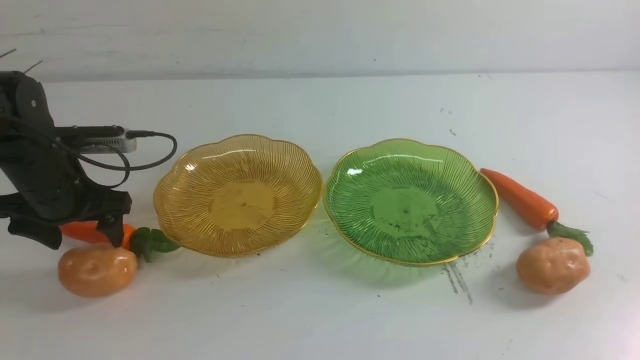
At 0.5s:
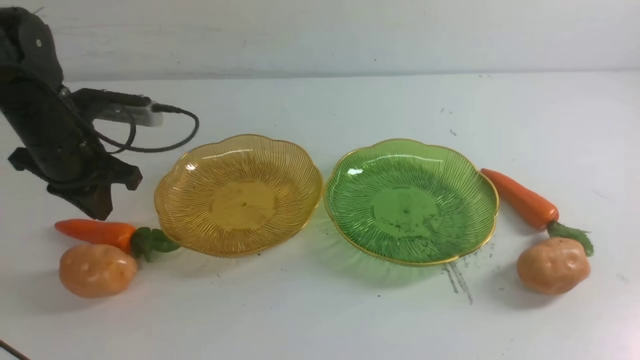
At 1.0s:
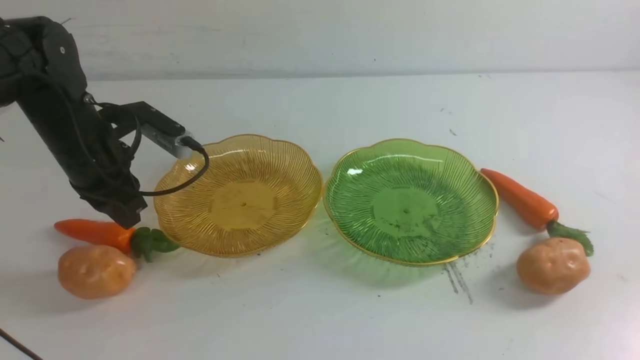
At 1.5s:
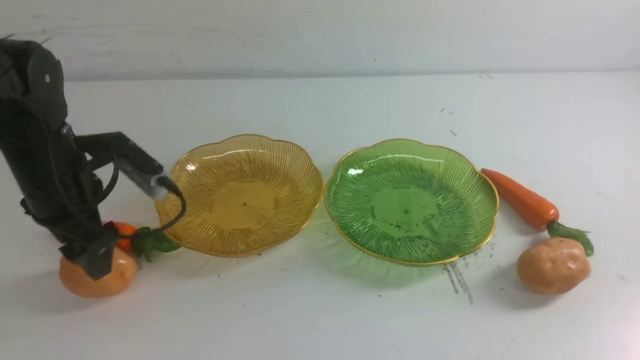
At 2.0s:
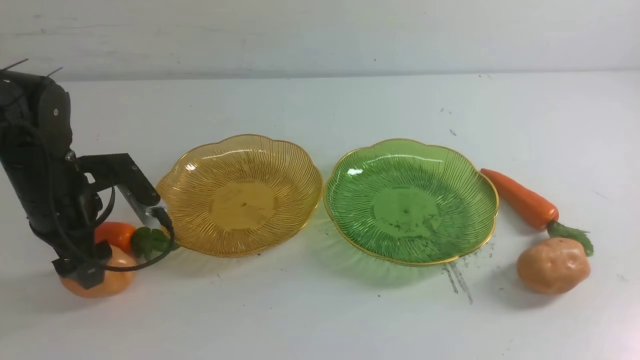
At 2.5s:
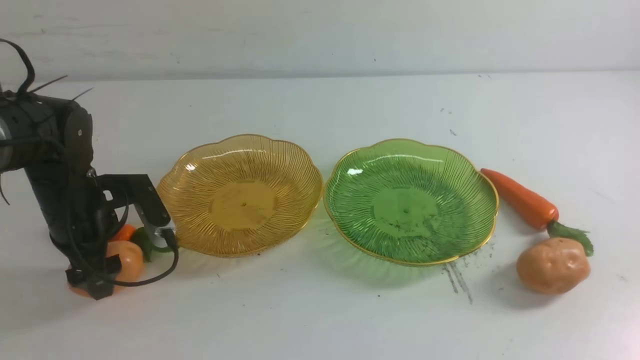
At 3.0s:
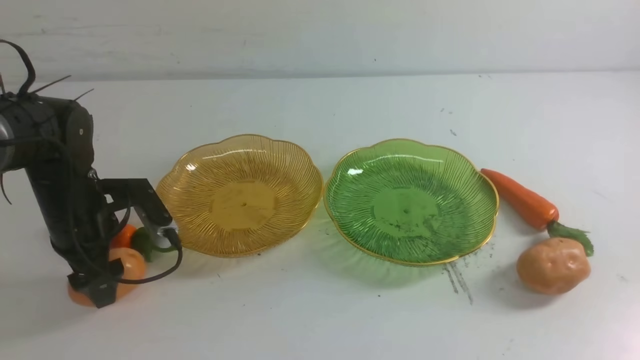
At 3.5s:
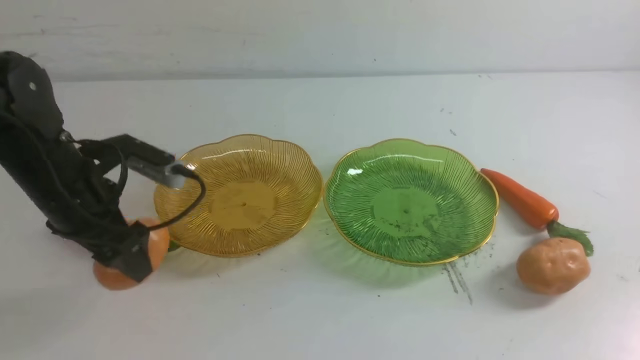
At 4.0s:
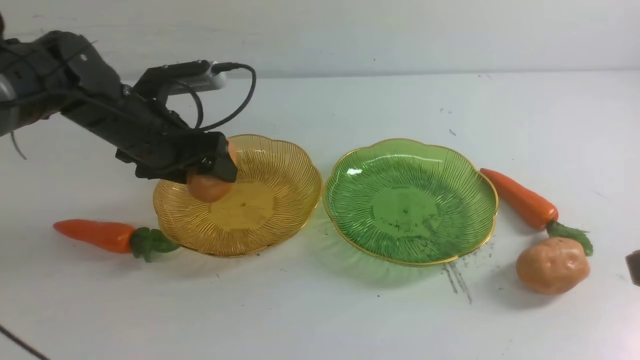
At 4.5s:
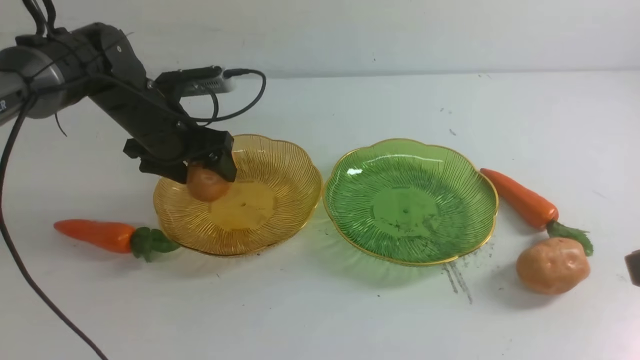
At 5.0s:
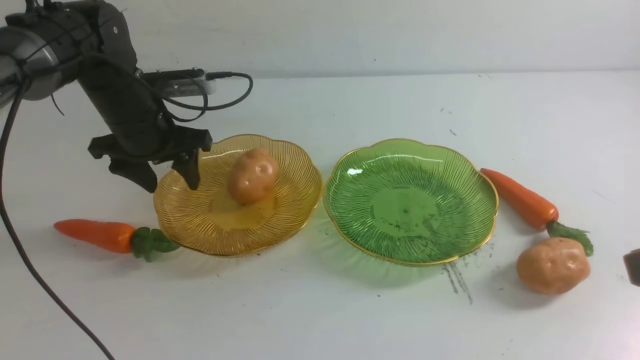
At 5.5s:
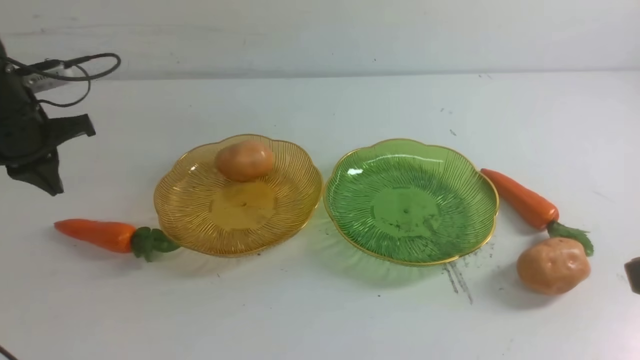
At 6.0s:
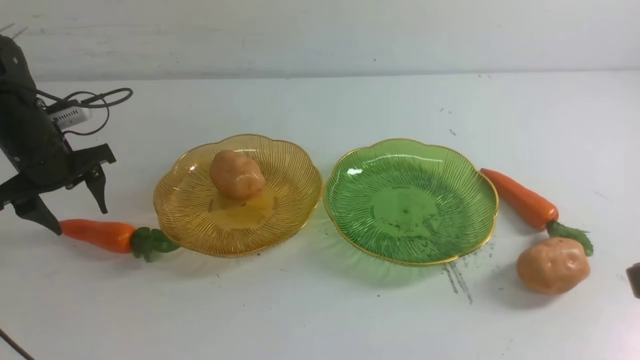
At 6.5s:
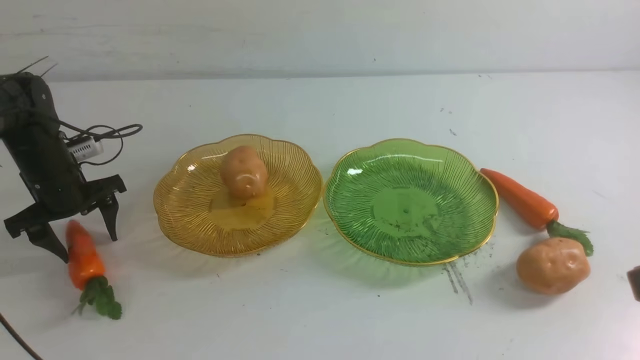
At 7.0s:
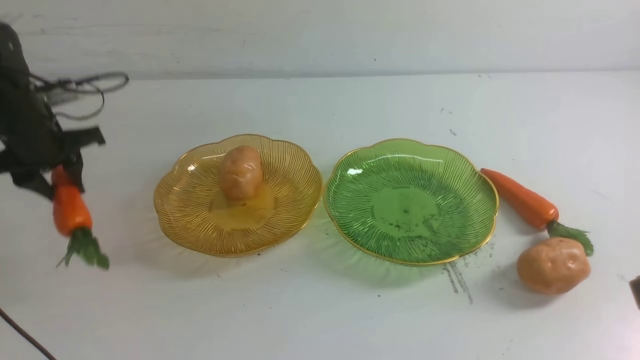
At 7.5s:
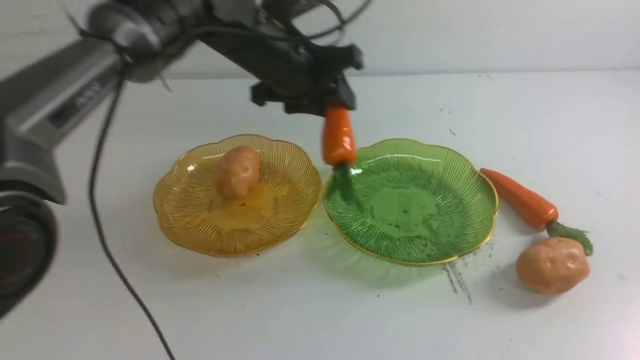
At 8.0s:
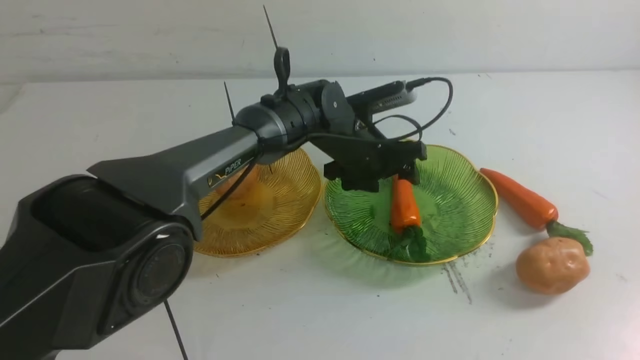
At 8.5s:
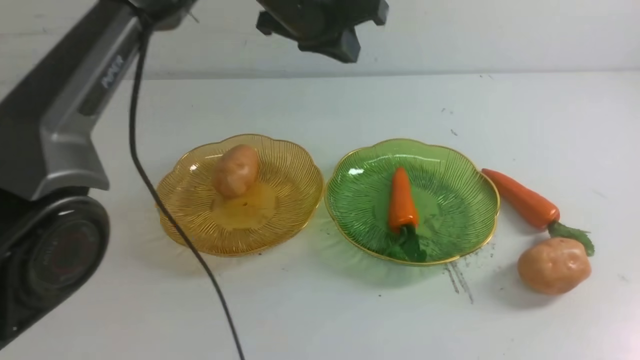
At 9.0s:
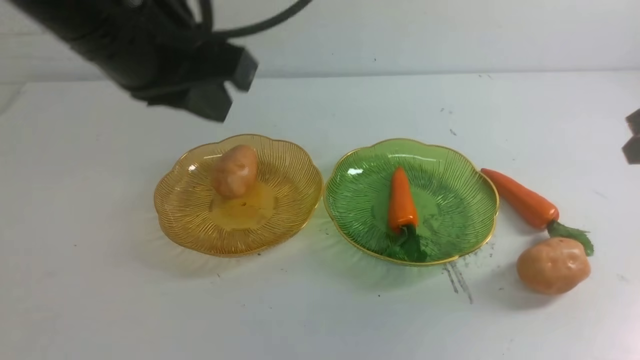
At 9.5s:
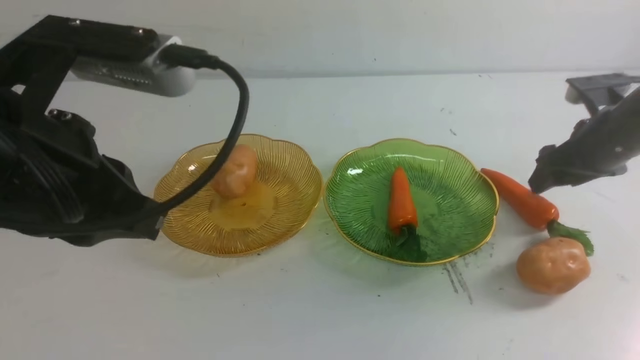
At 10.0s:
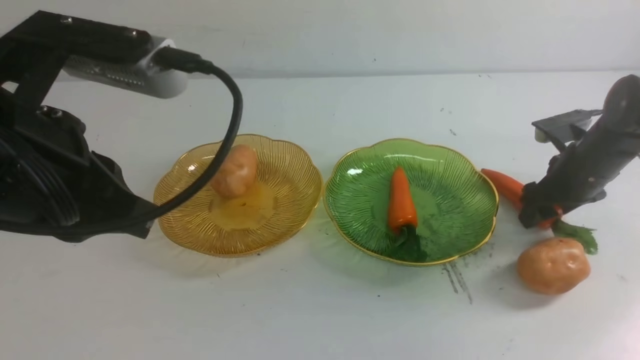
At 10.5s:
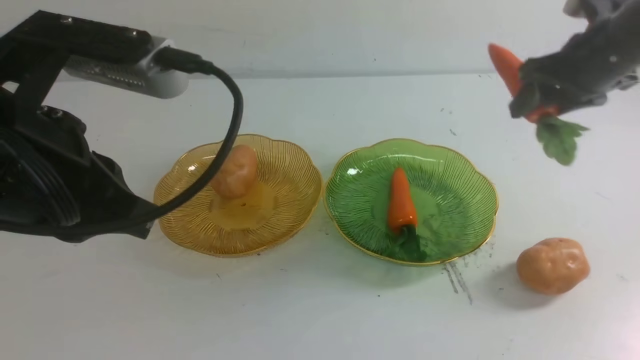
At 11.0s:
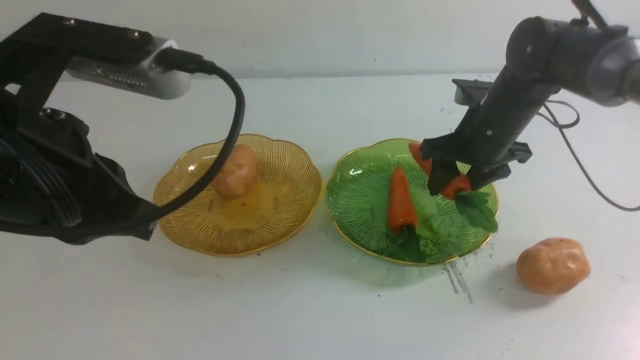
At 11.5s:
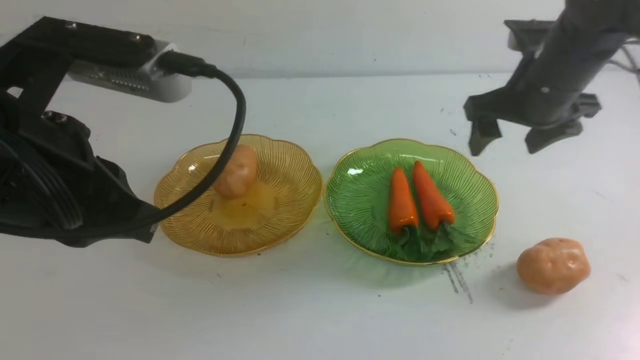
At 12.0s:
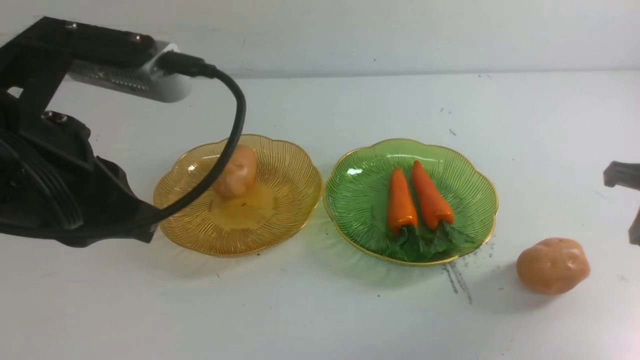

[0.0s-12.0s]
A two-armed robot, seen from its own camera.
Step, 0.0s to 4.5s: Grab a potato with your left arm and put it on the left plate.
Step, 5.0s to 8.0s: use the left arm to grab a carrot and put it into the right plate.
Step, 8.5s to 11.0s: use the right arm to grab a carrot and put it into the right plate.
0.0s to 2.0s: The left gripper closes and opens again.
2.0s to 4.0s: The left gripper travels to the right and forward by roughly 10 cm.
4.0s to 6.0s: The left gripper travels to the left by some 15 cm, and closes, then reopens.
6.0s to 8.0s: The left gripper goes some 35 cm to the right.
8.0s to 10.0s: The left gripper moves backward, to the left and upward, roughly 40 cm, and closes its fingers. The right gripper travels forward and downward by about 35 cm, and opens its fingers.
10.0s to 12.0s: The right gripper travels backward and upward by roughly 15 cm, travels to the left and back again, some 10 cm each way, and closes.

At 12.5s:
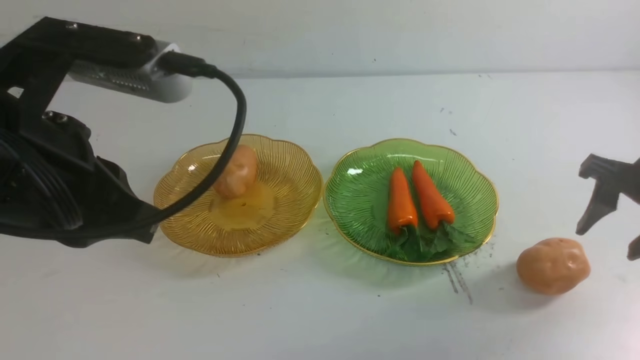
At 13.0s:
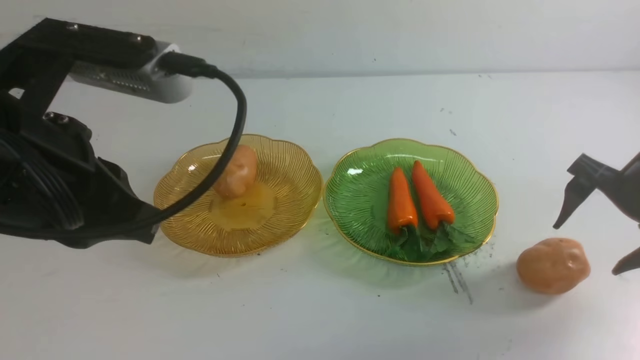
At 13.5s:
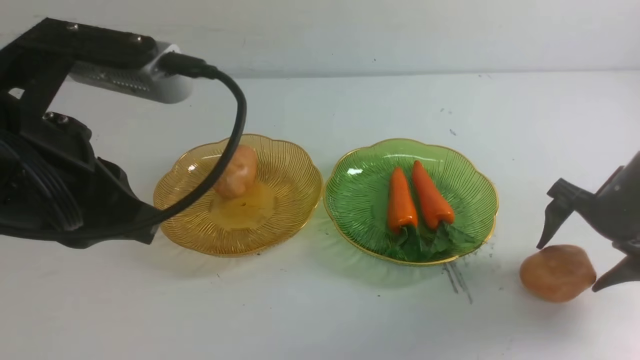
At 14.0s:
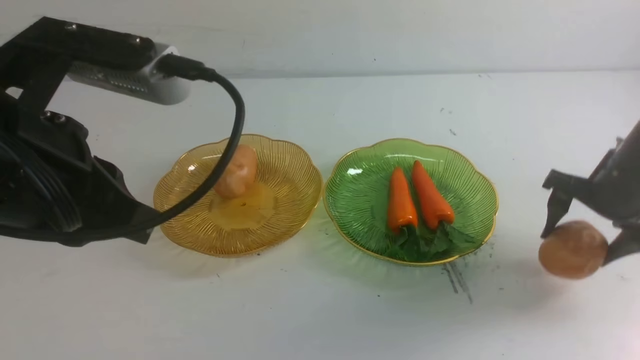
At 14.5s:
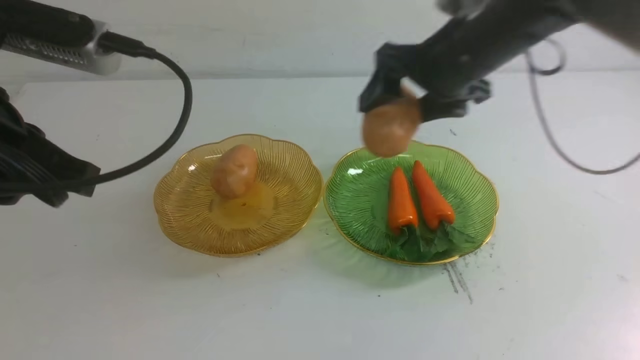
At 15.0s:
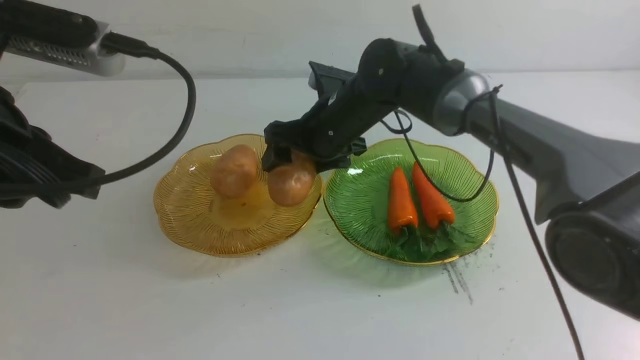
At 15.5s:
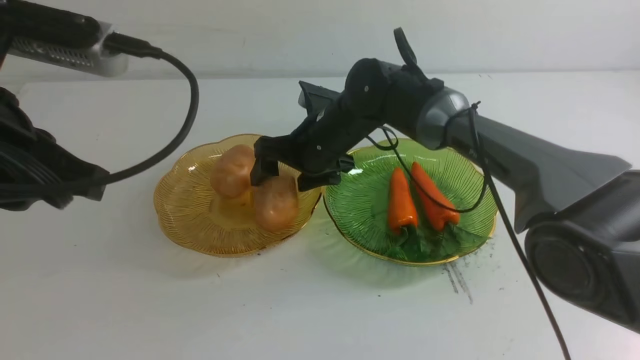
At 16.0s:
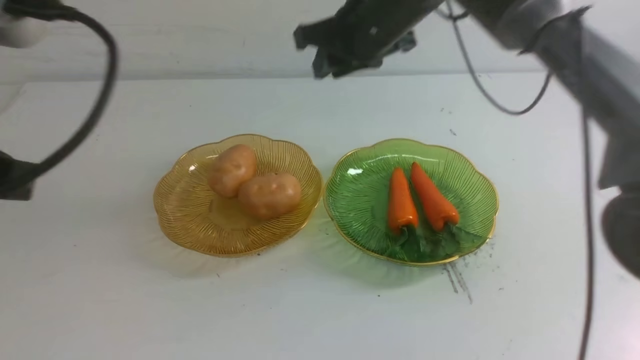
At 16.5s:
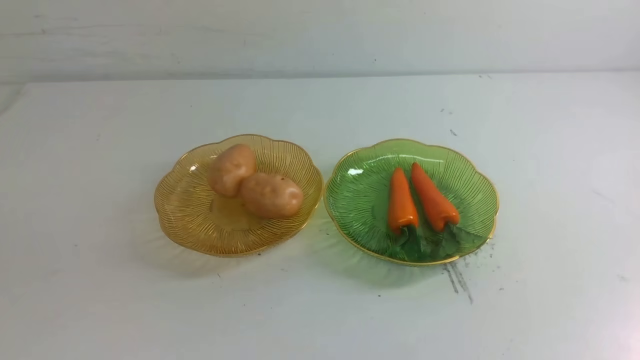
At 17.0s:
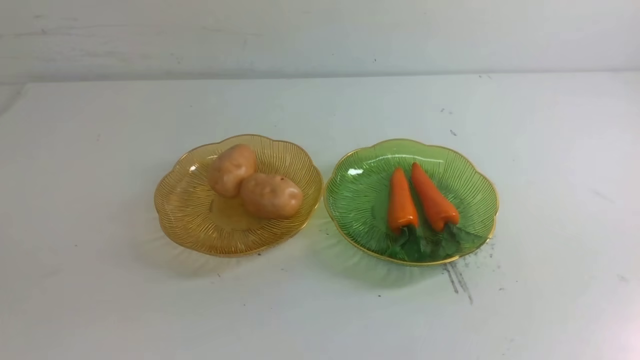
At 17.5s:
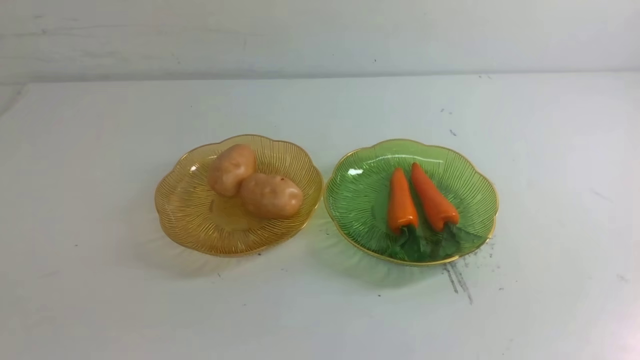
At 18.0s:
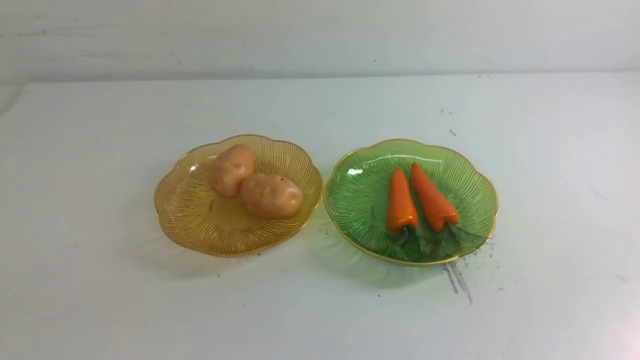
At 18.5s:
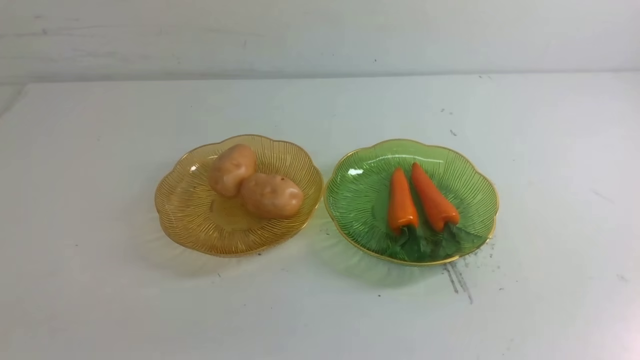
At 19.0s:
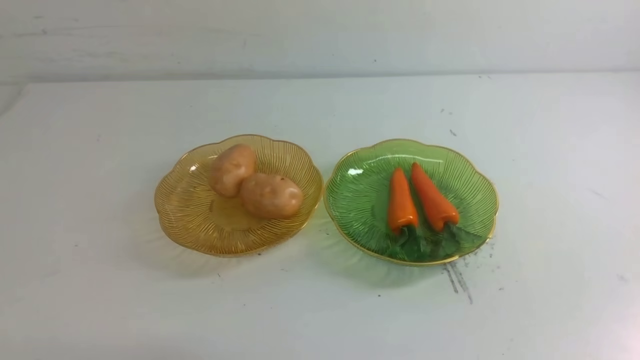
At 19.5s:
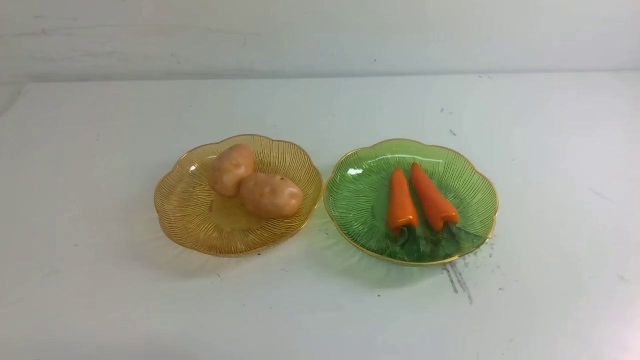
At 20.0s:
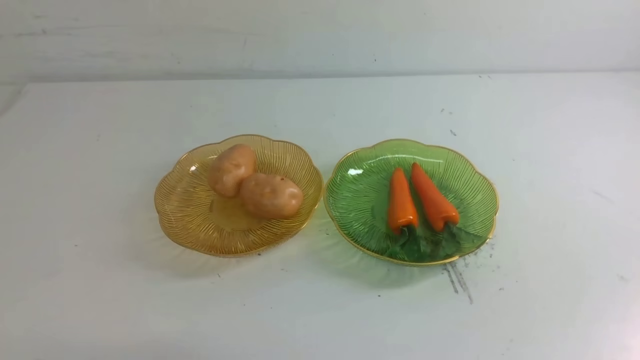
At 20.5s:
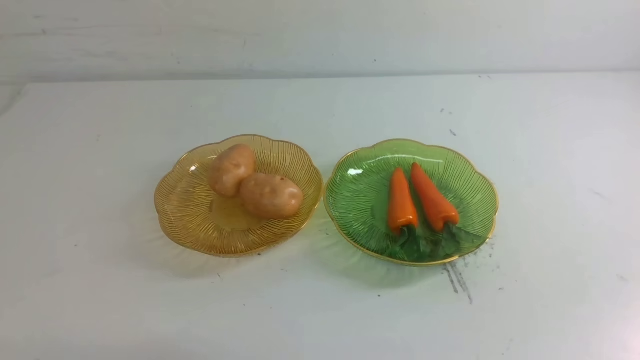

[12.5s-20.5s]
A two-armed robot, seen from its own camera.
Step, 12.5s to 15.5s: Grab a potato with your right arm and put it on the left plate.
12.5s to 14.5s: The right gripper travels to the left and forward by roughly 20 cm.
14.5s to 16.5s: The left gripper heads backward and to the left, covering some 20 cm. The right gripper moves backward and upward, some 30 cm, and closes.
